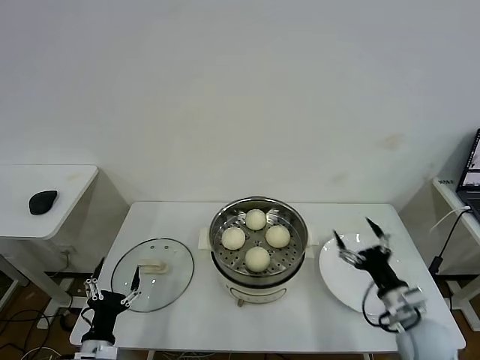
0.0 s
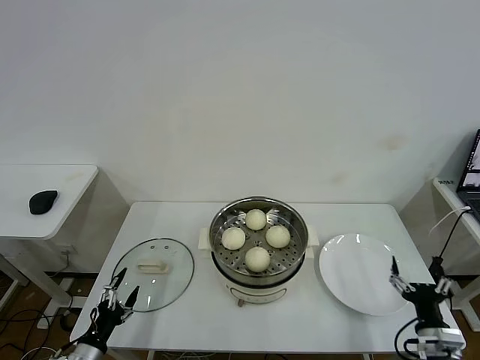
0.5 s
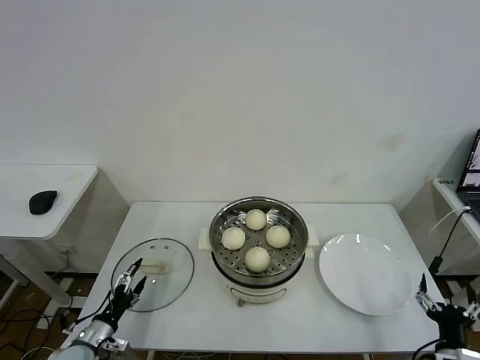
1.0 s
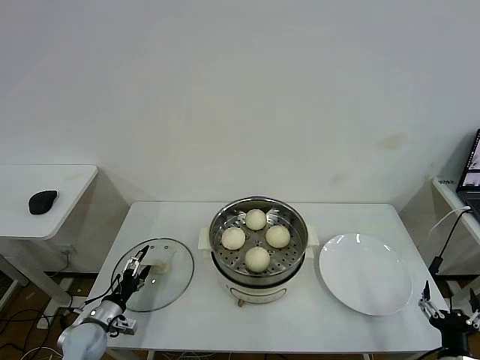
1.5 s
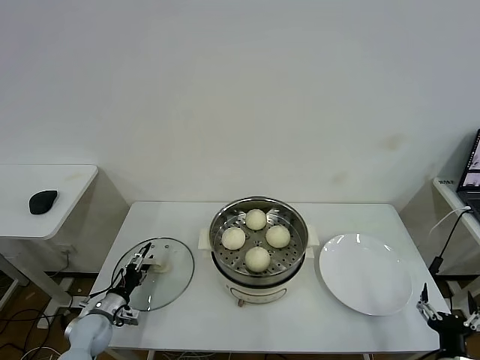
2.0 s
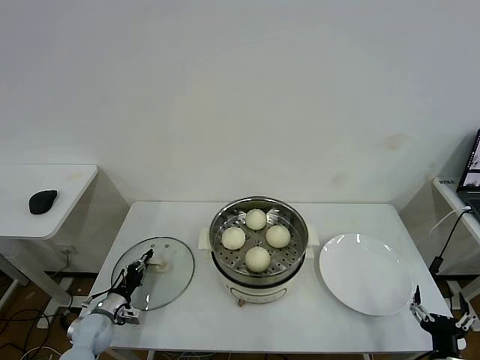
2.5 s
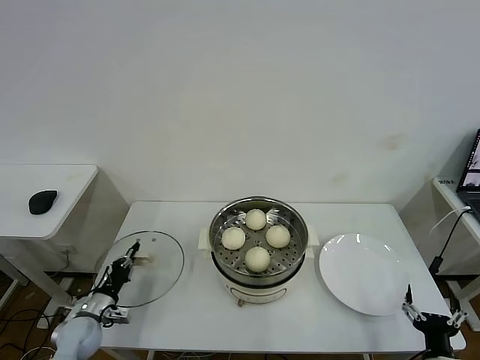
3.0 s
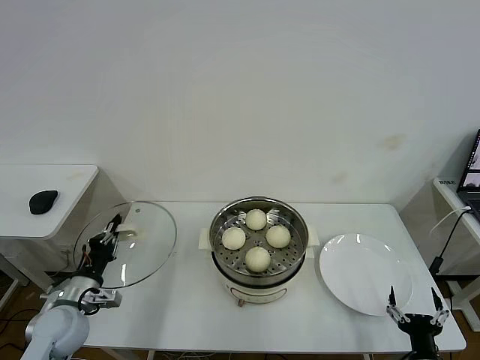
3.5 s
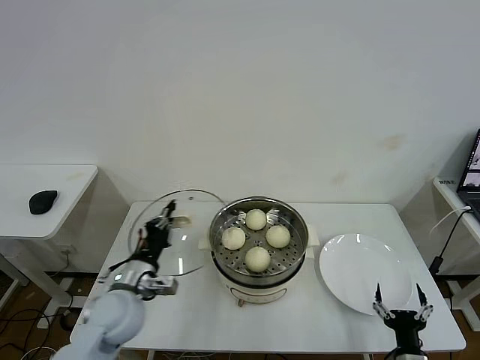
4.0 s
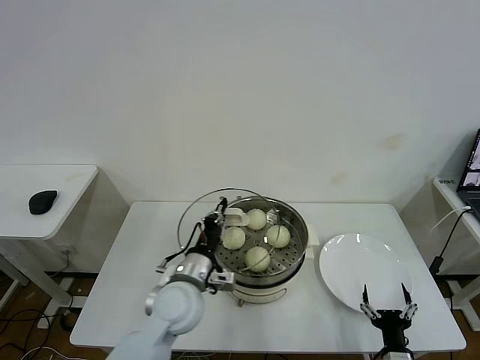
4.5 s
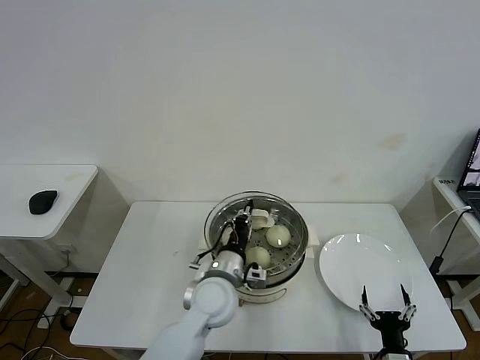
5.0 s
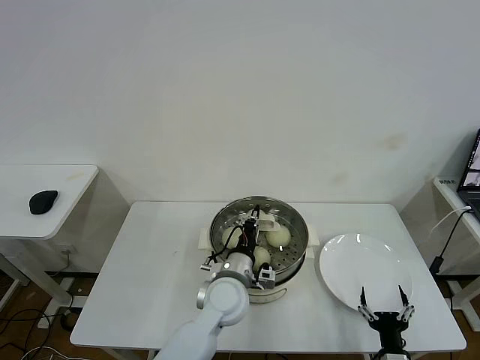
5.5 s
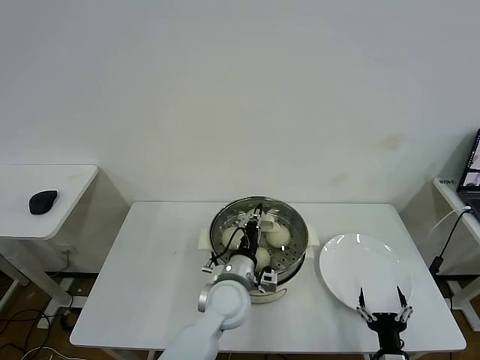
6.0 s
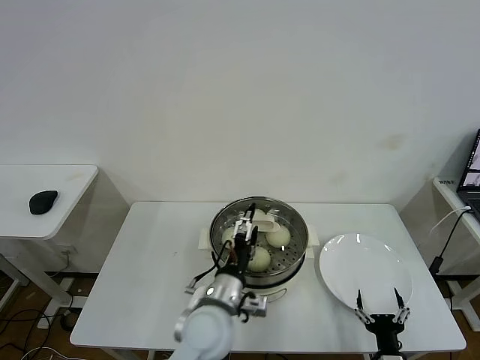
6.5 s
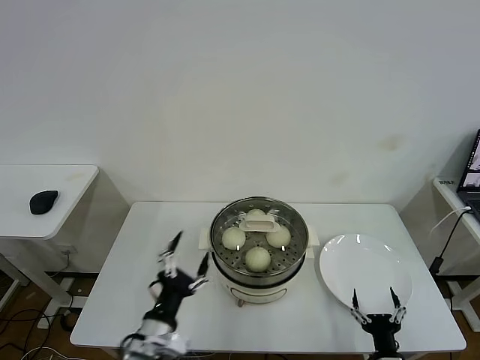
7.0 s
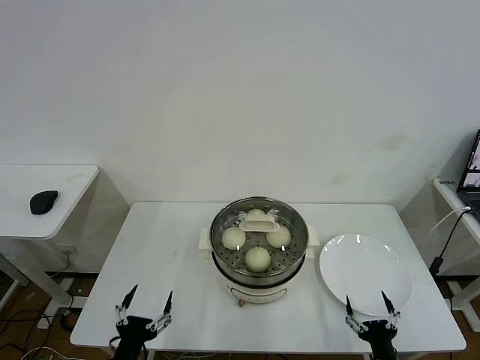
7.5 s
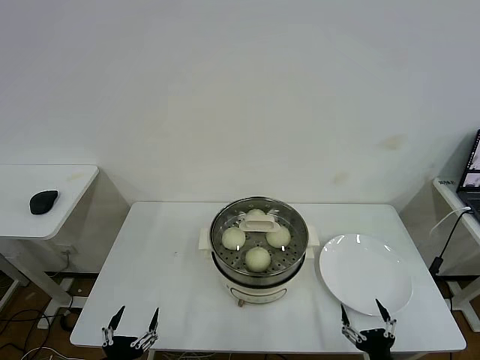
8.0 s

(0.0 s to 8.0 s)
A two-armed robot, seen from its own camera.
Task of the whole recording: take steamed baozi put them in steamer then cover it.
Step, 0.0 s - 2.5 s: Grasp the pot lid with left gripper.
Step, 3.5 s - 6.0 s: Place the pot lid on the steamer with left gripper.
0.0 s - 2.0 s: The left gripper goes approximately 20 cm forward, to the left and downward; the right gripper is displaced backward and downward by roughly 15 cm.
2.0 s - 4.0 s: The right gripper moves to the left, about 5 cm, while the left gripper heads upward and to the right, covering roughly 25 cm, and closes.
4.0 s - 6.0 s: The left gripper travels to the right by about 20 cm.
6.0 s - 8.0 s: The left gripper shifts about 35 cm to the left and backward, and opens its fingers.

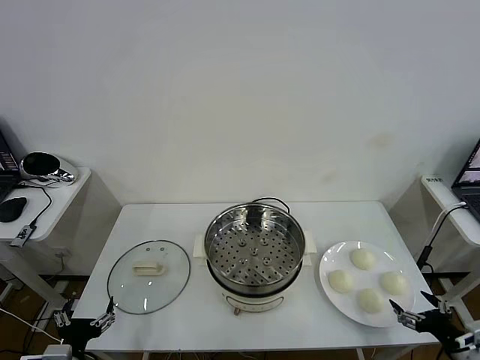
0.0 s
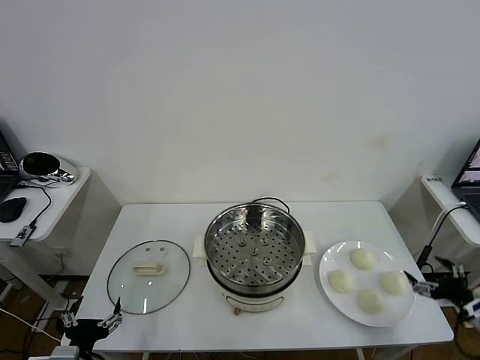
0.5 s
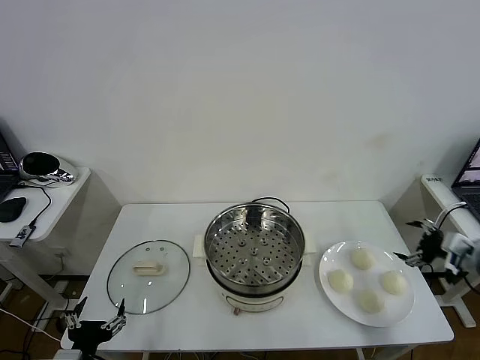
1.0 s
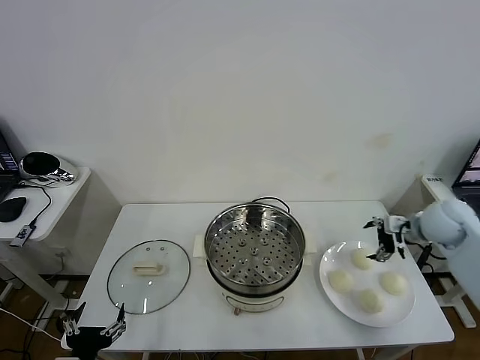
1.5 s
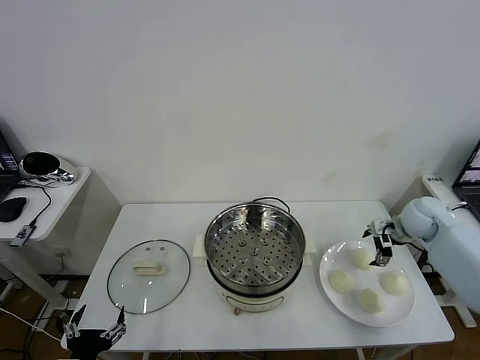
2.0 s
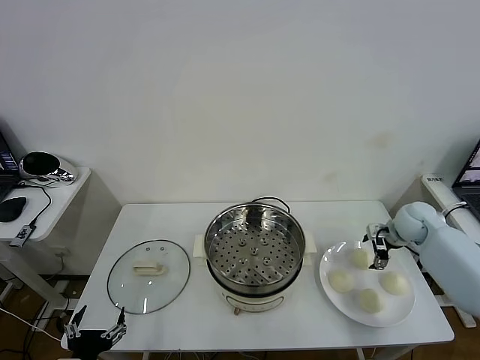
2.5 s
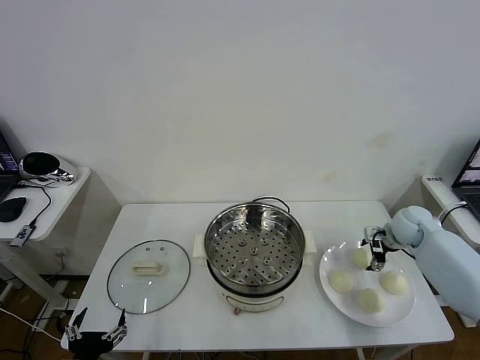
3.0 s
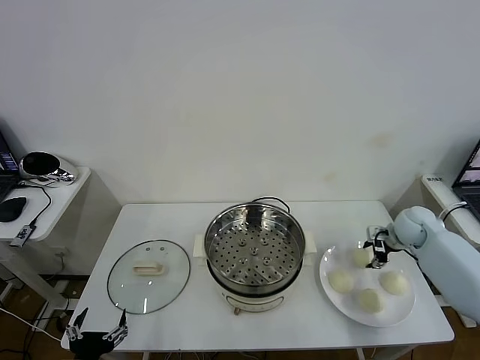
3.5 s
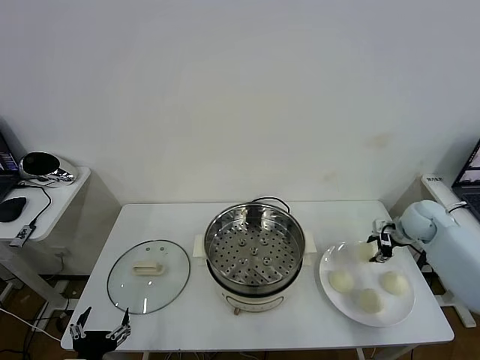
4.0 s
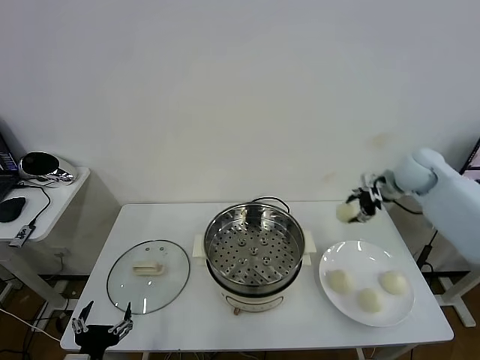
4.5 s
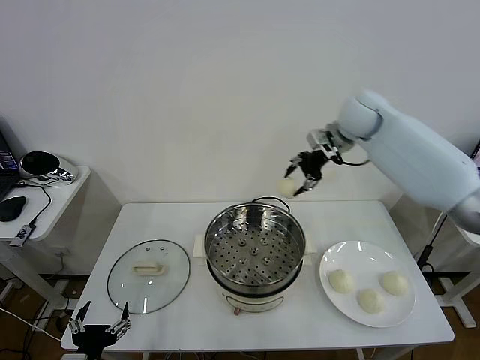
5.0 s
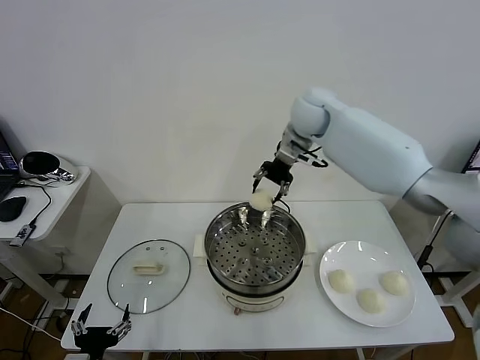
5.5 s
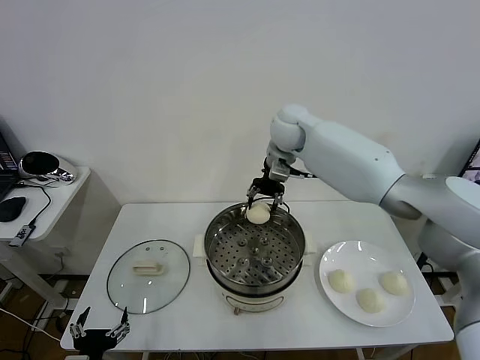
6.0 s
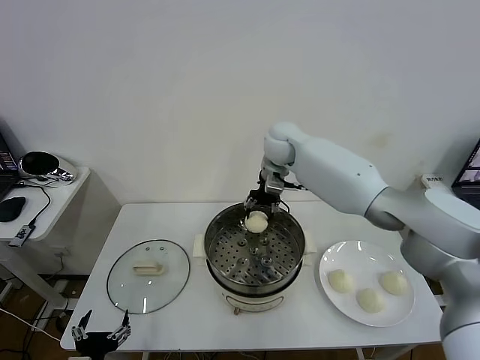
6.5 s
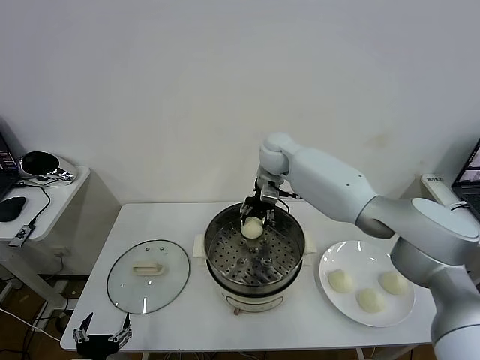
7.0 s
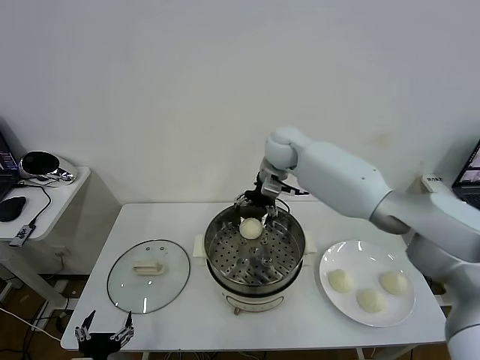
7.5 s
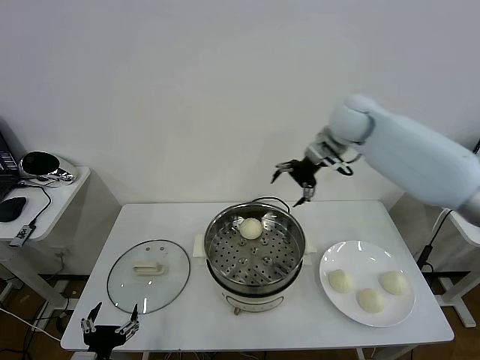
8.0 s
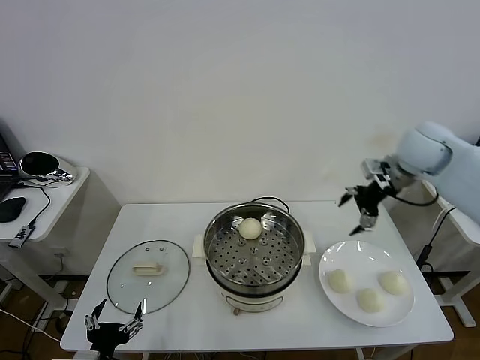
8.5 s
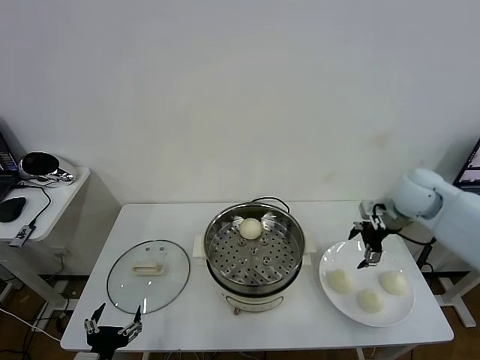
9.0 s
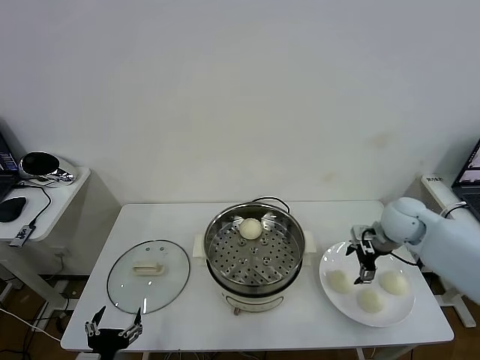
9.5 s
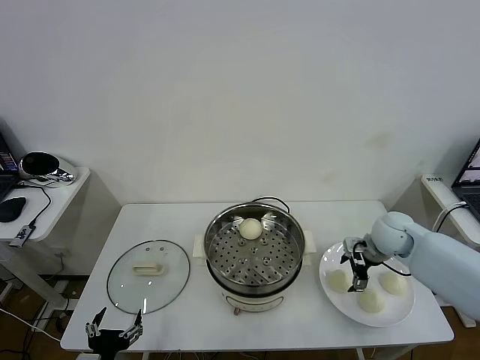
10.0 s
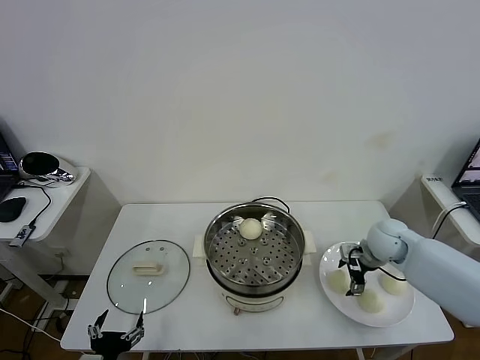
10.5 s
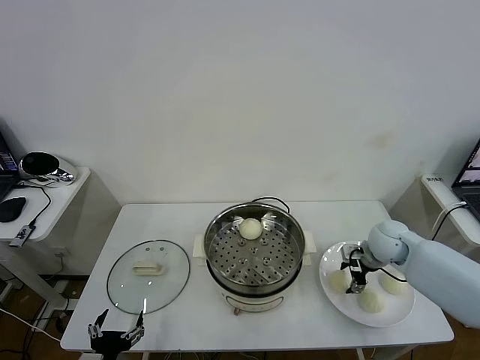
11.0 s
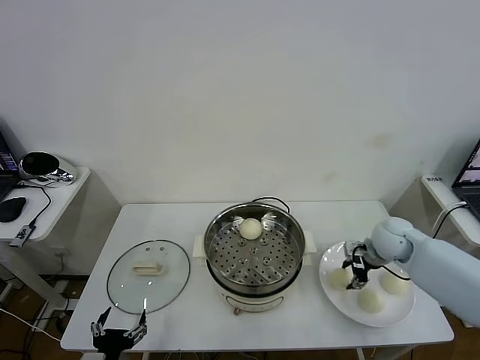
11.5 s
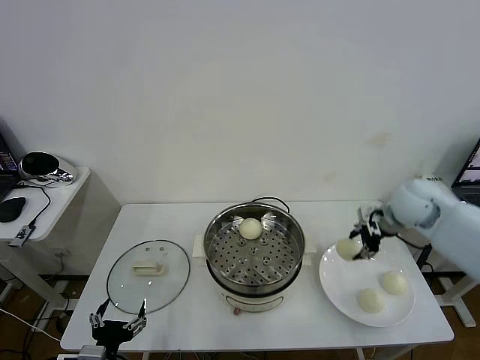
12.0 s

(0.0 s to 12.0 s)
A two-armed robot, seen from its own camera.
Task of the whole recording: take steamed baozi put them in steamer then cover it.
Step, 0.0 s - 3.0 s: Grasp the baozi in the plate with right gripper.
Step, 3.5 s - 7.0 s: Place the baozi on the steamer with right gripper.
Step, 7.5 s - 11.0 s: Grasp the baozi in the plate with right gripper.
2.0 s - 4.0 s: The right gripper closes.
4.0 s - 6.0 s: The right gripper moves to the left and upward, roughly 40 cm.
6.0 s - 8.0 s: The right gripper is displaced to the right by approximately 15 cm, and opens.
8.0 s - 10.0 s: The right gripper goes some 25 cm downward and backward.
10.0 s - 12.0 s: The right gripper shifts roughly 15 cm upward, and closes.

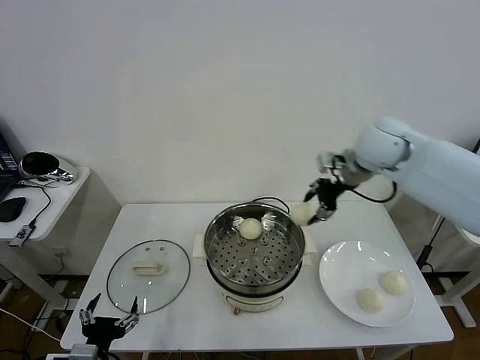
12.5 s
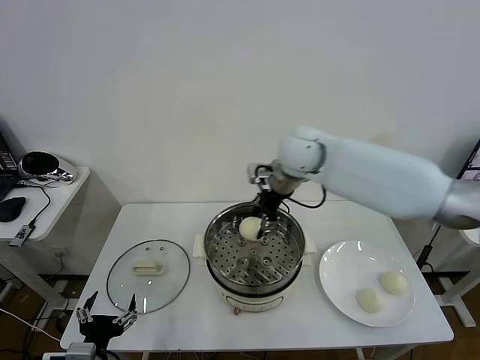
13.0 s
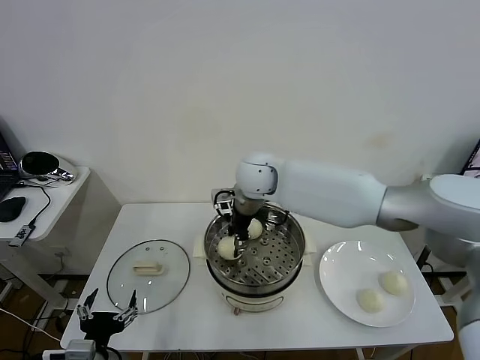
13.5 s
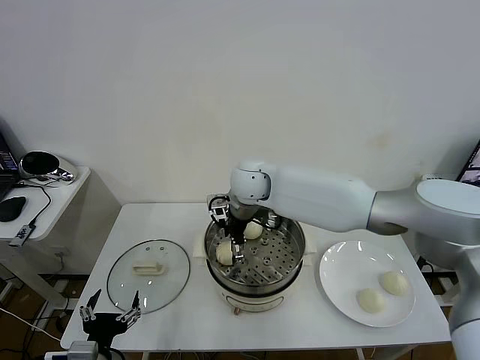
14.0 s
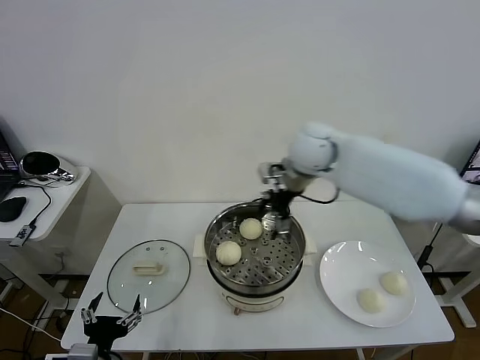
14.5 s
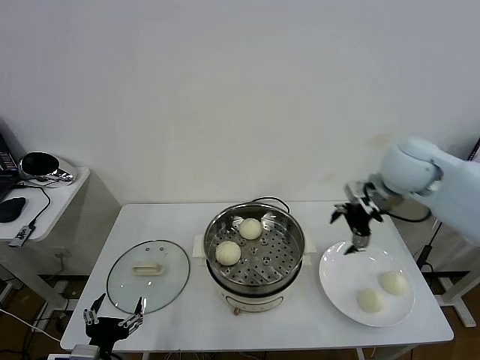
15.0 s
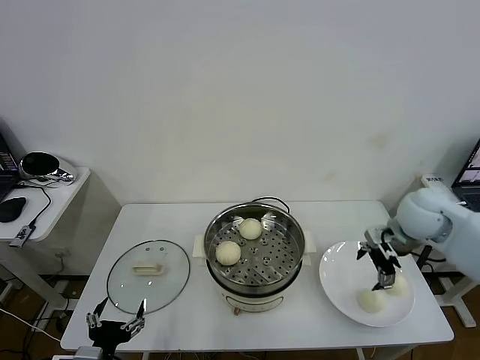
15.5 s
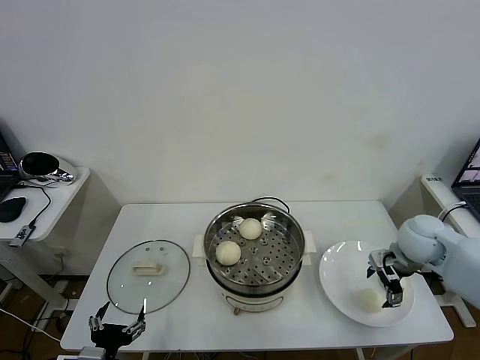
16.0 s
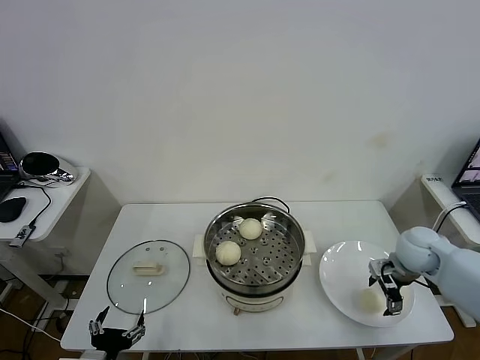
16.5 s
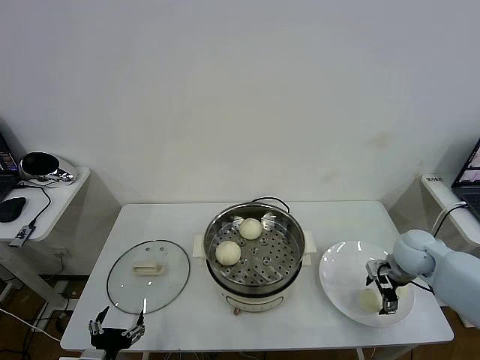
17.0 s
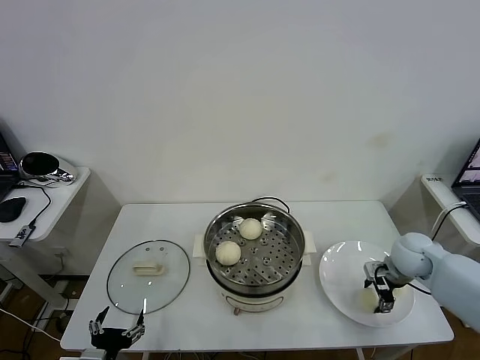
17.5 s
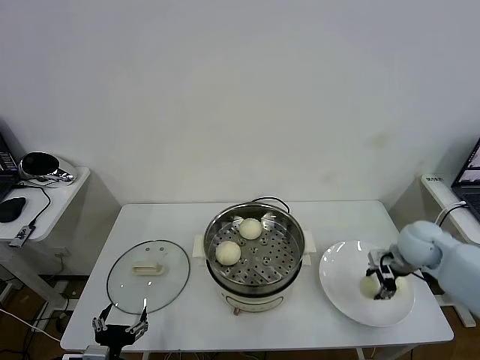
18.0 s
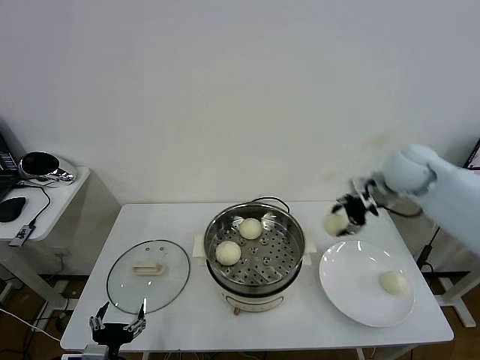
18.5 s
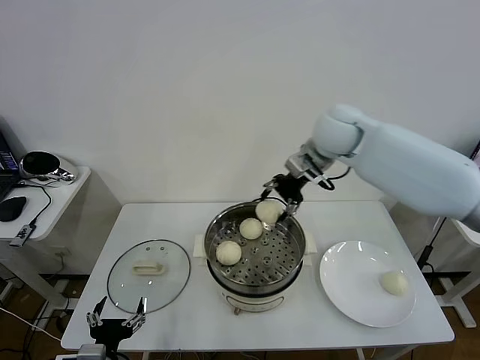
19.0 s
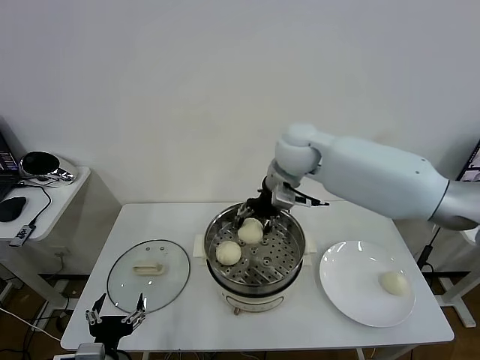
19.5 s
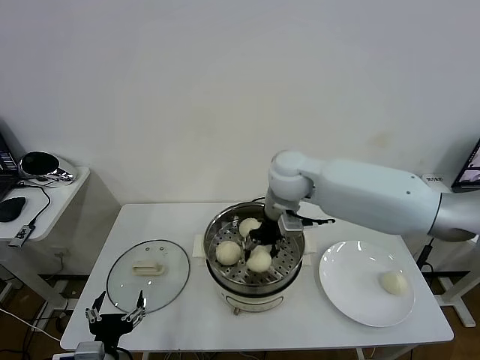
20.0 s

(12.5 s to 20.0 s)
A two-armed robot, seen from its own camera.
Task of the whole recording: take steamed baozi put them in steamer then cover it.
Step, 12.5 s - 14.0 s: Place the baozi on the steamer with right gripper.
Step, 14.5 s - 17.5 s: Grasp the baozi in the plate with right gripper.
12.5 s - 14.5 s: The right gripper moves roughly 20 cm to the left and comes back, and opens.
14.5 s - 16.5 s: The right gripper heads to the right, downward and backward, covering some 35 cm.
16.5 s - 18.0 s: The right gripper closes.
18.0 s - 20.0 s: The right gripper goes roughly 30 cm to the left.
